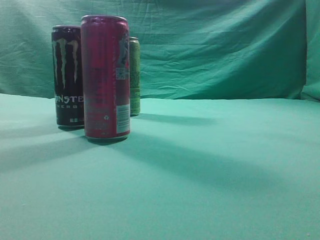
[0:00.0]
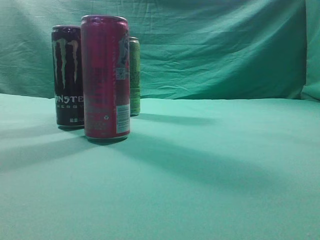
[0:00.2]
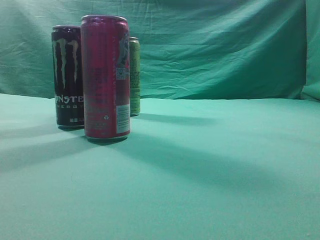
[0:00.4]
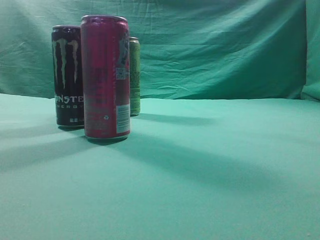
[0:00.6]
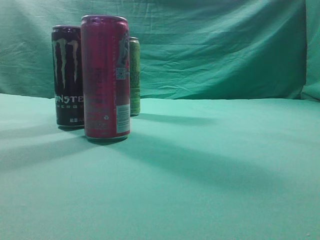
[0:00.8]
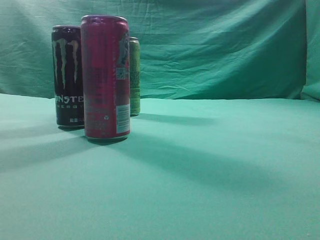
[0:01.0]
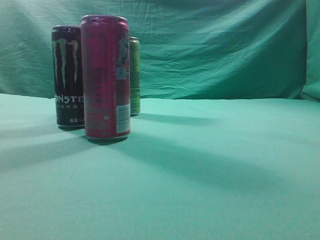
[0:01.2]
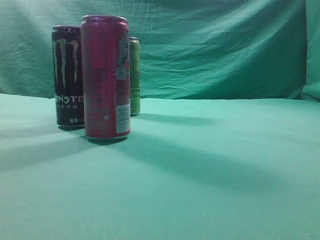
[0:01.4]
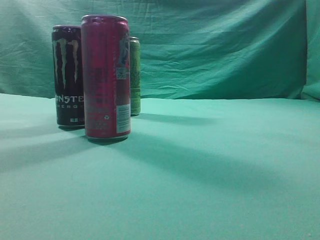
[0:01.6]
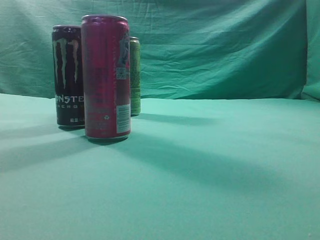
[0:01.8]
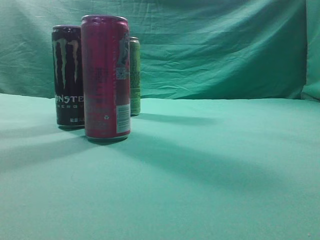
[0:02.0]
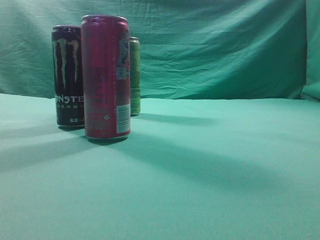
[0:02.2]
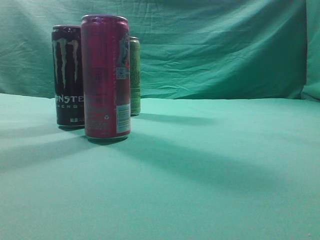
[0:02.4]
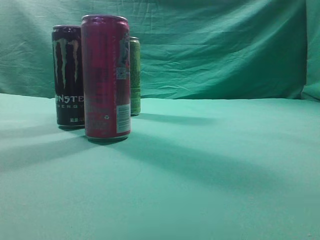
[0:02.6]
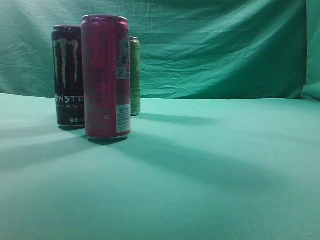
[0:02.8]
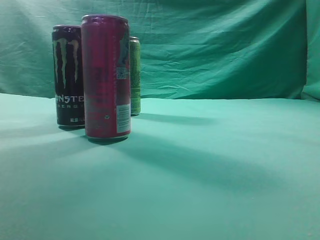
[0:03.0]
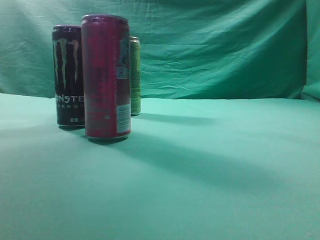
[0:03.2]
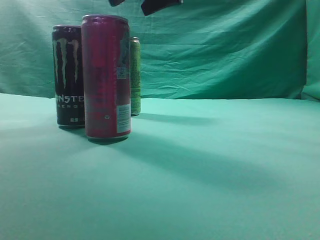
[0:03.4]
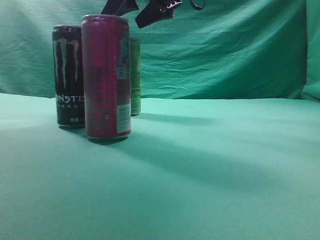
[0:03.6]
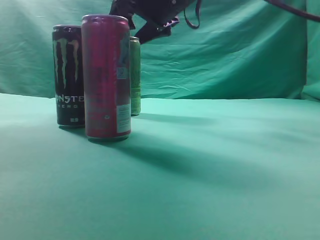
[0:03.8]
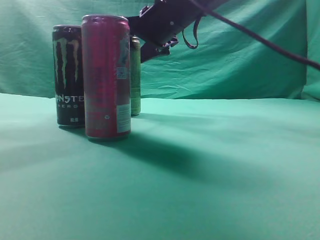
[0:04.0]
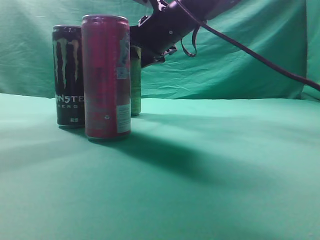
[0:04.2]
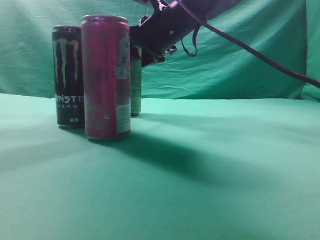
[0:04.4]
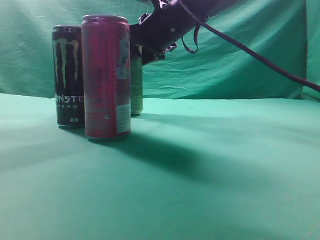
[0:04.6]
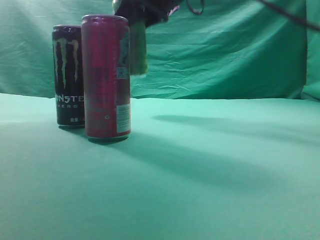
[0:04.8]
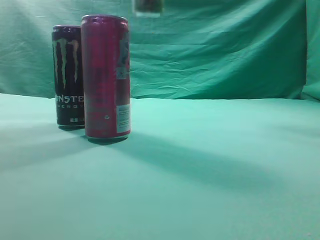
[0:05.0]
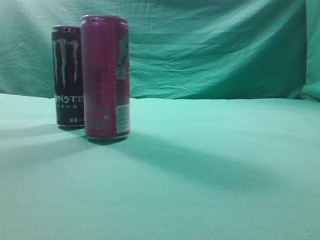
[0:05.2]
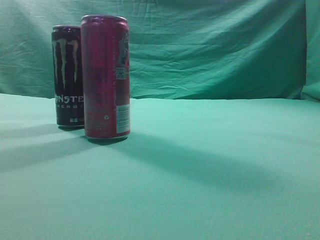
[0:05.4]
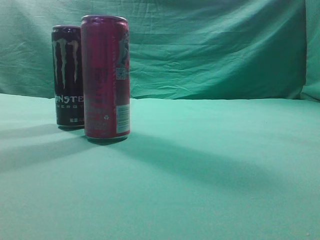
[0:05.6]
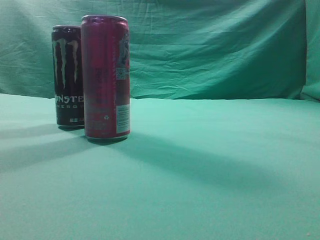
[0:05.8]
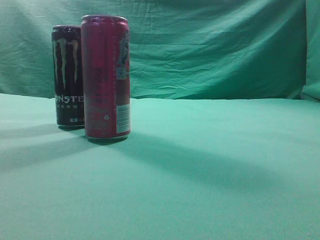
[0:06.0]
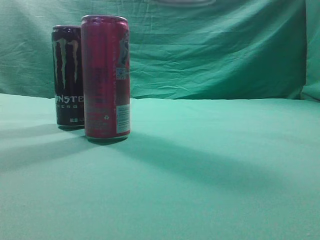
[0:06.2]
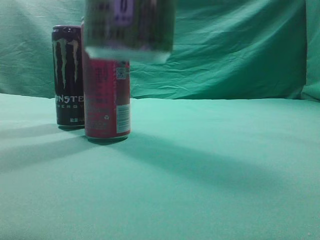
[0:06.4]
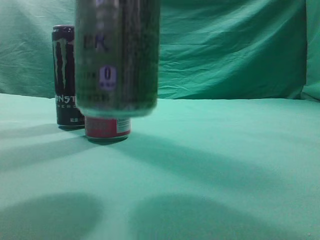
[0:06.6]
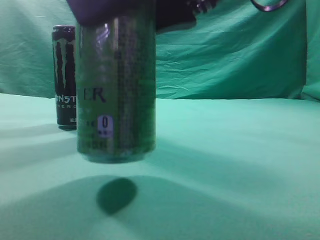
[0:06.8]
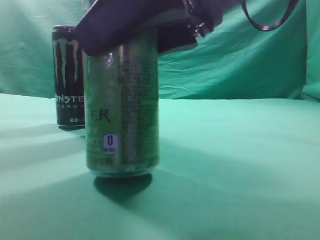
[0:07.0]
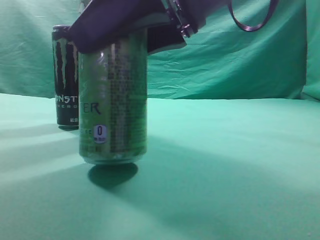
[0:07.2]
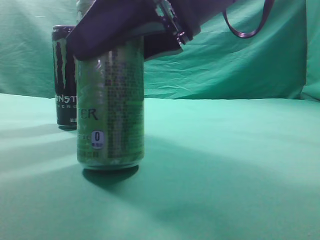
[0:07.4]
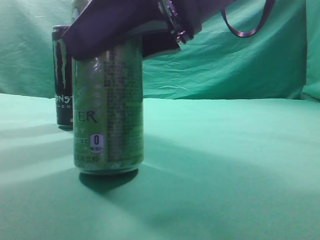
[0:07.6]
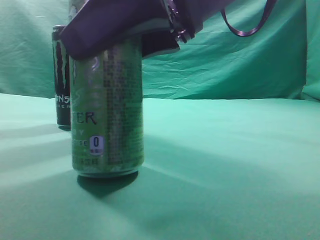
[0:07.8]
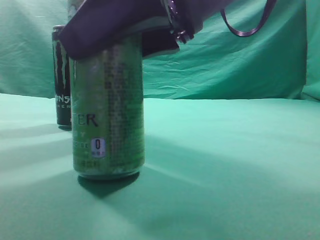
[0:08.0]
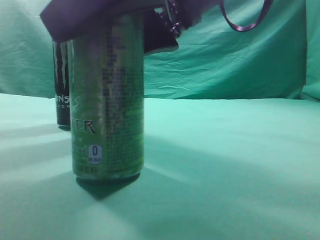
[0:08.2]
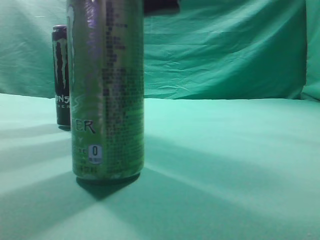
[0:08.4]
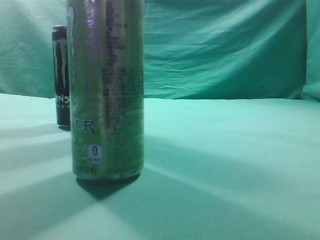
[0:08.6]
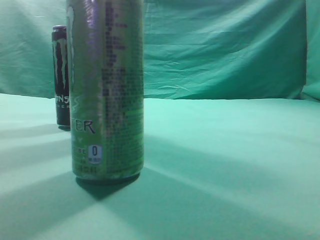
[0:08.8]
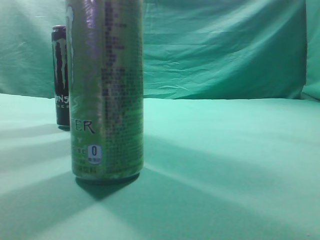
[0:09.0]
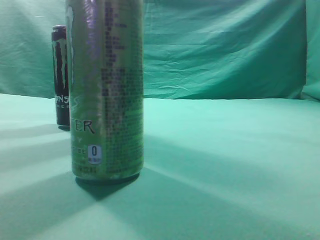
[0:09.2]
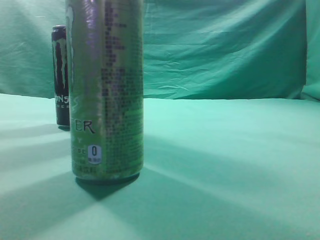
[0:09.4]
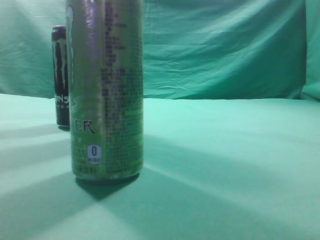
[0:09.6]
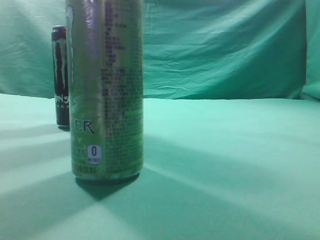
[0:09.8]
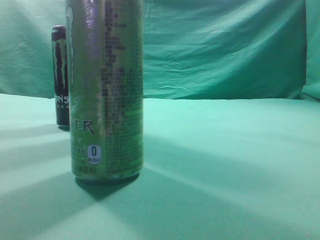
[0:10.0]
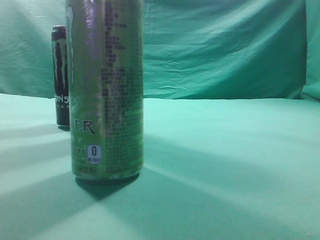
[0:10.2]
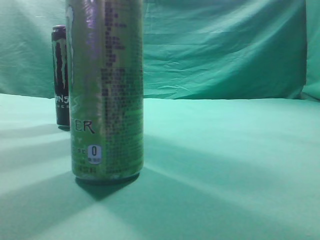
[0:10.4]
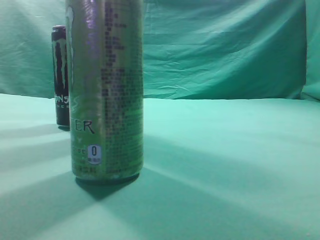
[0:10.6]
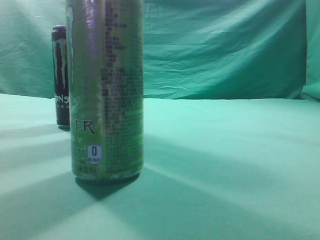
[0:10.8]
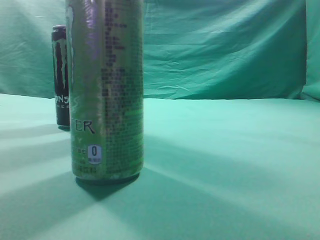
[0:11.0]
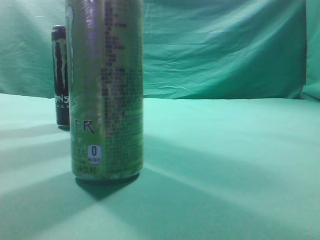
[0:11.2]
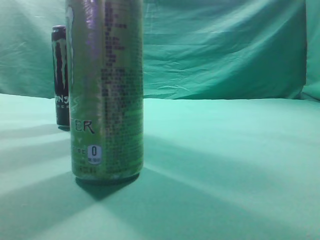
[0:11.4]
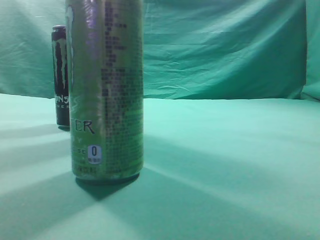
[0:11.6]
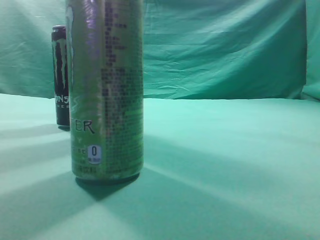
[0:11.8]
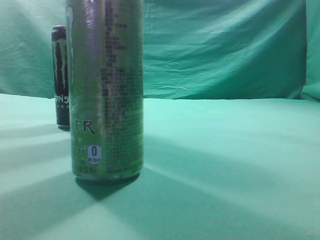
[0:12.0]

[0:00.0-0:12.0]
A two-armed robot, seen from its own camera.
Task of the whole recording: move one drink among three beverages.
Step, 0:00.0 to 0:05.2: Grasp the beverage bottle placed at the back of the desk.
Step, 0:05.4 to 0:09.0: Place the beverage bottle to the front of the table.
0:01.6 to 0:03.0: The right gripper heads forward, to the left and upward, covering approximately 35 cm.
0:03.0 to 0:04.4: The right gripper shifts about 20 cm downward, forward and to the left, and opens up.
0:04.4 to 0:06.0: The right gripper shifts about 35 cm backward, upward and to the right.
0:06.0 to 0:07.6: The right gripper shifts approximately 20 cm downward and to the left.
0:07.6 to 0:09.0: The right gripper moves upward, to the right and backward, roughly 20 cm, and closes.
